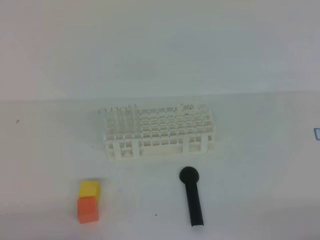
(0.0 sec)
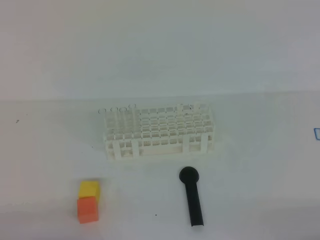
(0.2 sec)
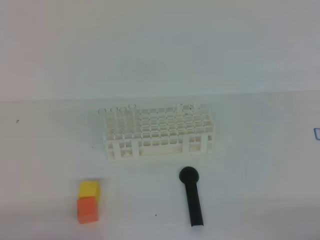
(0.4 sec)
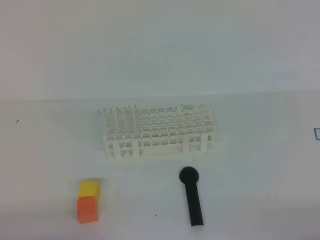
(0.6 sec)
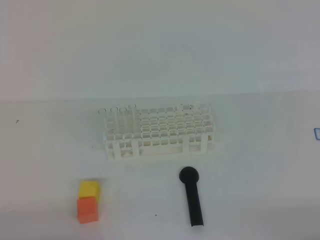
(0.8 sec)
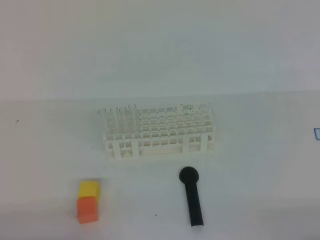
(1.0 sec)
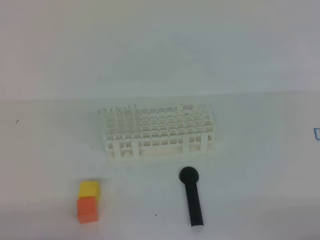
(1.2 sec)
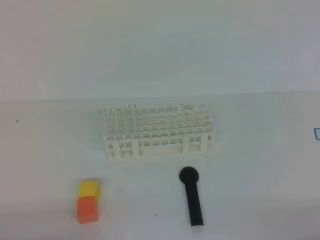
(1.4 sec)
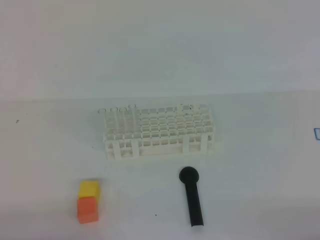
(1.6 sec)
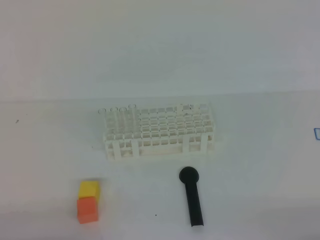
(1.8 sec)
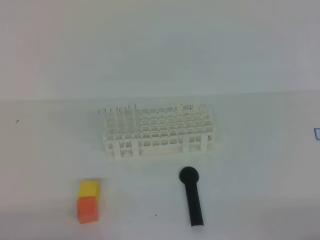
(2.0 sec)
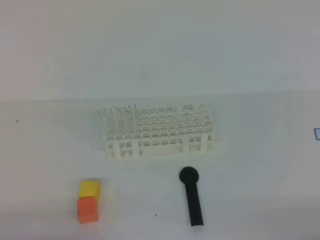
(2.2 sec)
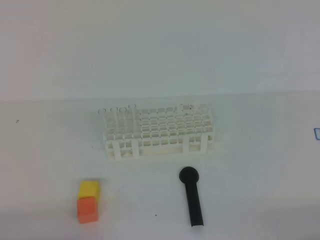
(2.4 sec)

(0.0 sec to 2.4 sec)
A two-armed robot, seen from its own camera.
1.2 sec - 2.4 sec: The two grippers keep their place.
